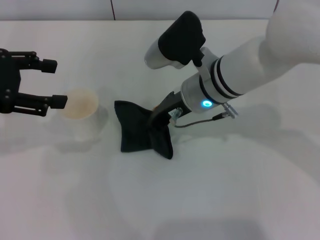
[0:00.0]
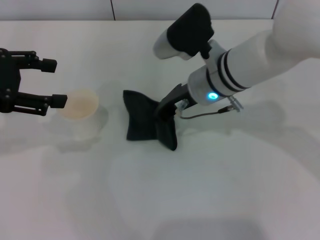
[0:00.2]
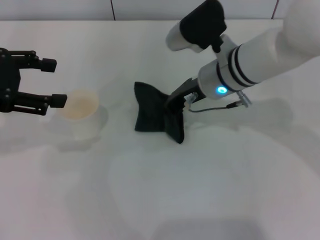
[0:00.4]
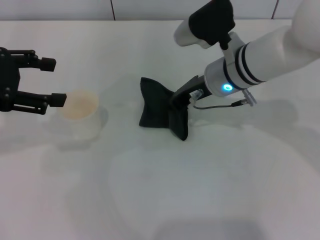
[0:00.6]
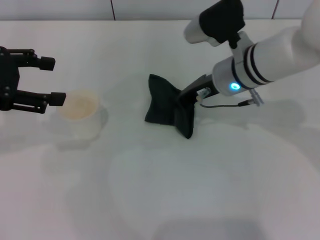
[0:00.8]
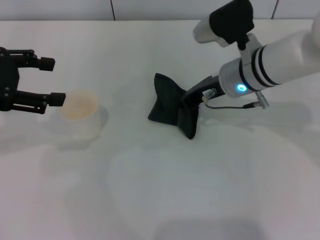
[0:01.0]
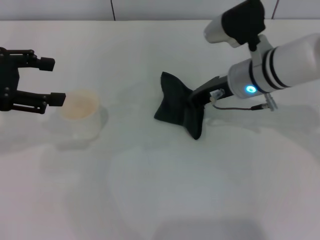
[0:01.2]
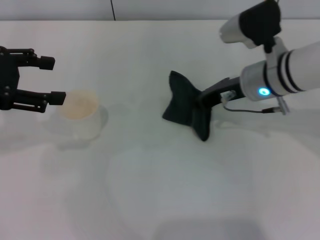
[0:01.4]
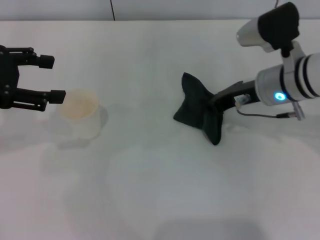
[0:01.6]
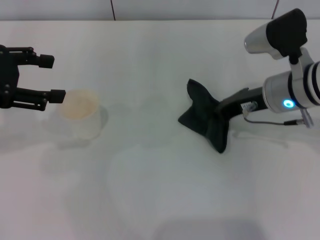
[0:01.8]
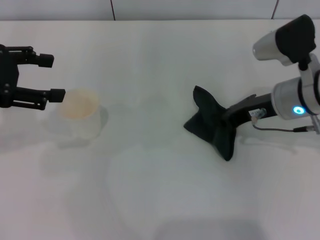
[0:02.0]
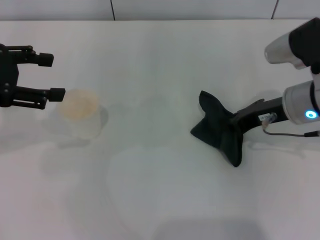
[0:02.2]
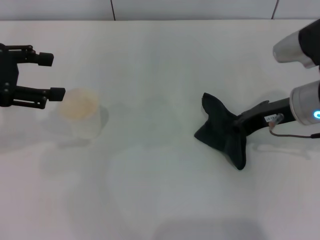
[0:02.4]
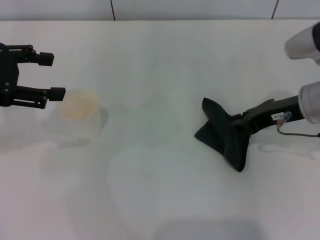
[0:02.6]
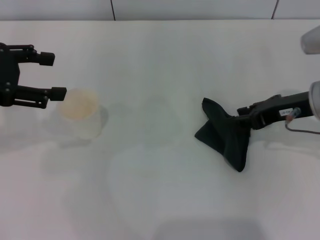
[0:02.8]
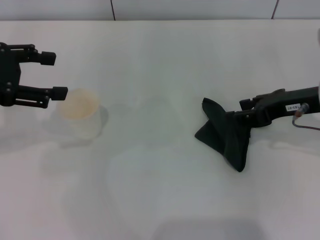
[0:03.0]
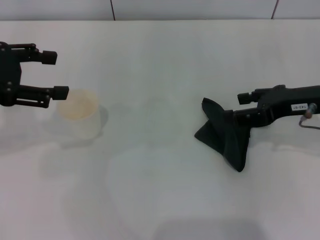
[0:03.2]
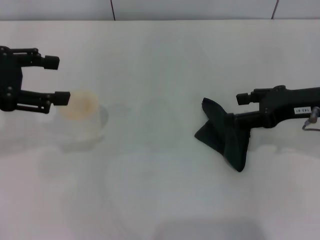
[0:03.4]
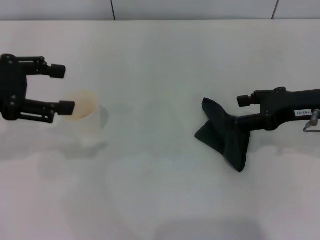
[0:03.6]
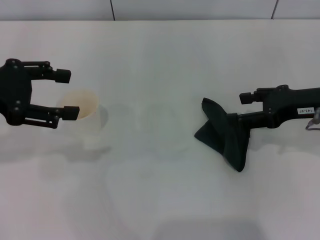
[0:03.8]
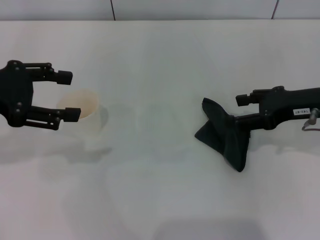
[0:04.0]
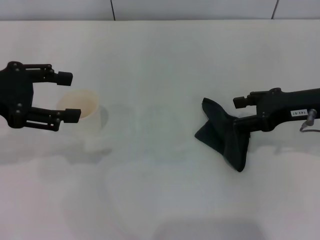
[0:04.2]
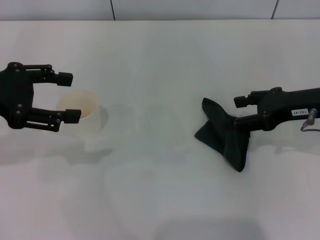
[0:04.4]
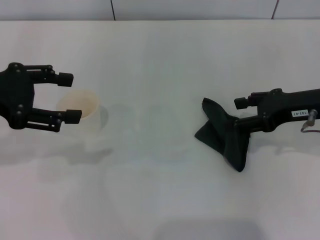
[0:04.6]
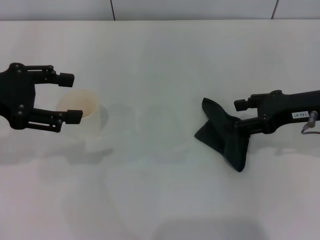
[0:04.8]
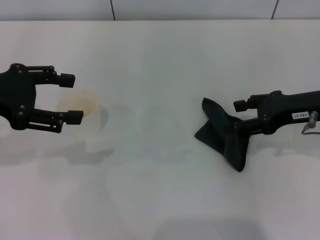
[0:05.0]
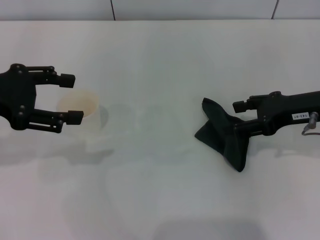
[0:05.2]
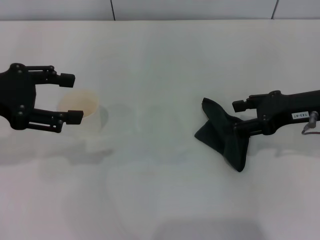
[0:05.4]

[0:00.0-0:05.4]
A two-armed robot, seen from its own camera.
Step, 0:00.4 to 0:03.0: Place the rag on the table with the right gripper.
0:00.0 to 0:01.4: The right gripper moves to the right, some 10 cm.
0:01.4 to 0:02.8: The right gripper moves to the right, roughly 10 cm.
0:02.8 to 0:04.0: The right gripper opens its fingers.
0:04.0 to 0:05.4: Both grippers stay about where they are.
